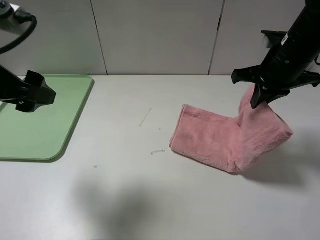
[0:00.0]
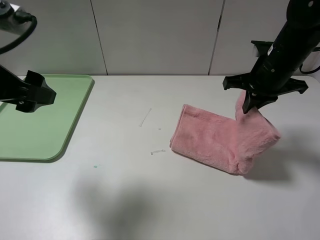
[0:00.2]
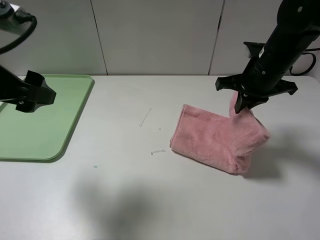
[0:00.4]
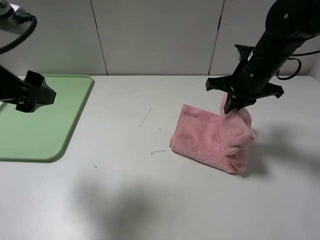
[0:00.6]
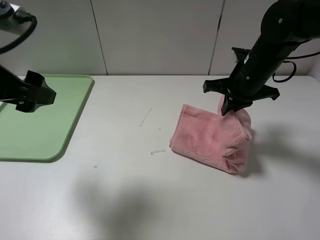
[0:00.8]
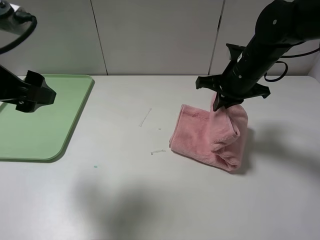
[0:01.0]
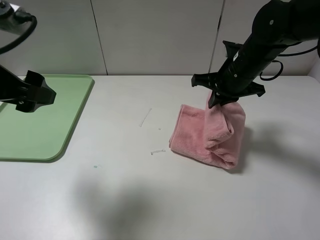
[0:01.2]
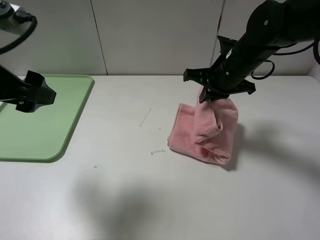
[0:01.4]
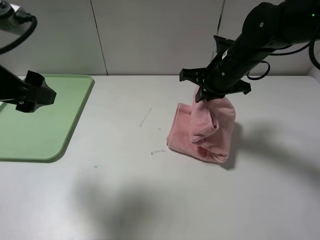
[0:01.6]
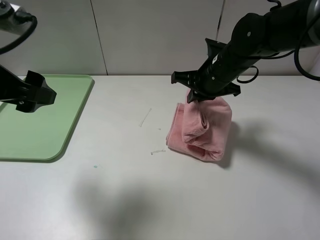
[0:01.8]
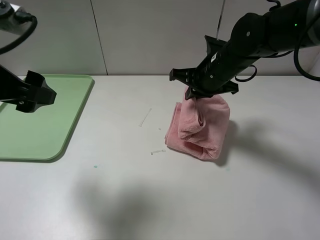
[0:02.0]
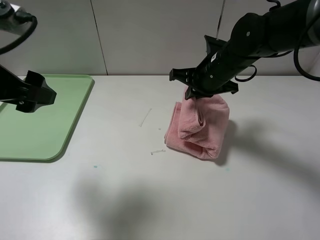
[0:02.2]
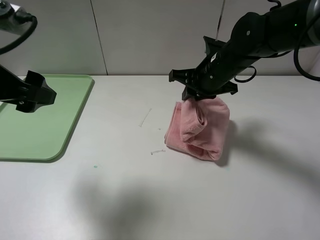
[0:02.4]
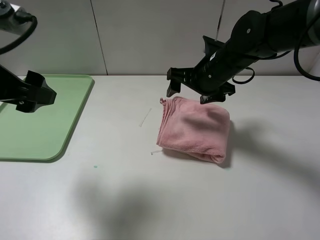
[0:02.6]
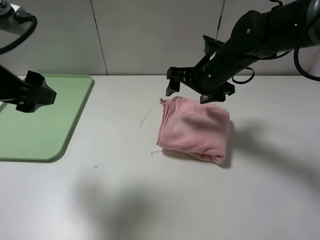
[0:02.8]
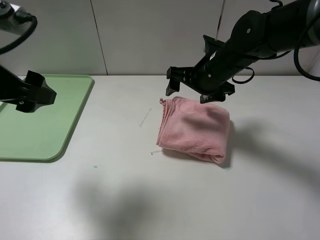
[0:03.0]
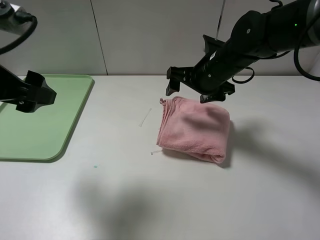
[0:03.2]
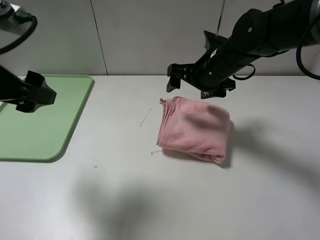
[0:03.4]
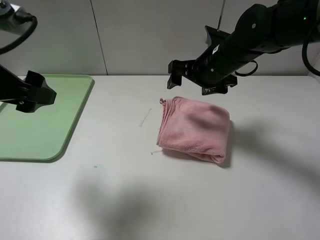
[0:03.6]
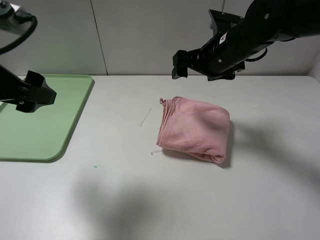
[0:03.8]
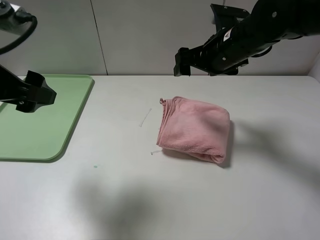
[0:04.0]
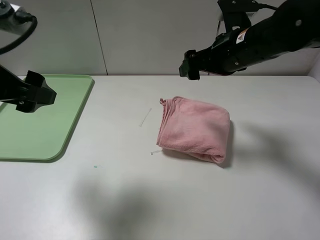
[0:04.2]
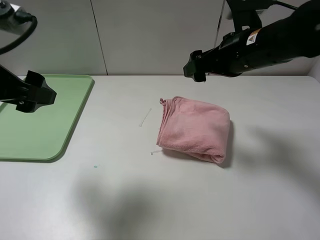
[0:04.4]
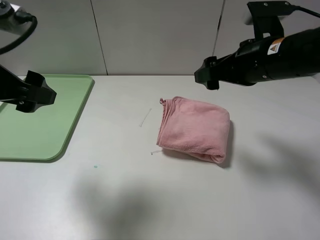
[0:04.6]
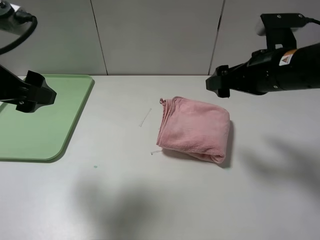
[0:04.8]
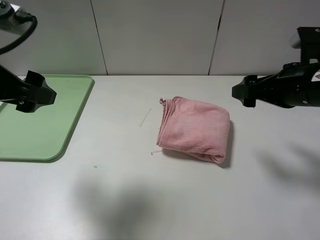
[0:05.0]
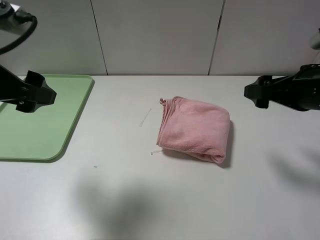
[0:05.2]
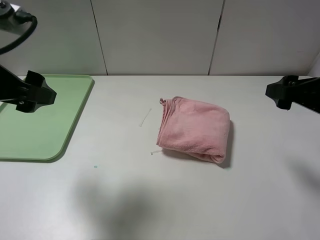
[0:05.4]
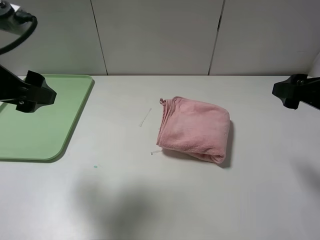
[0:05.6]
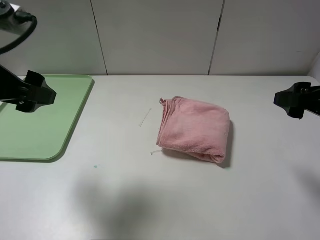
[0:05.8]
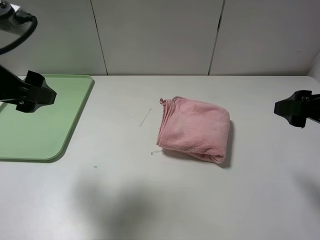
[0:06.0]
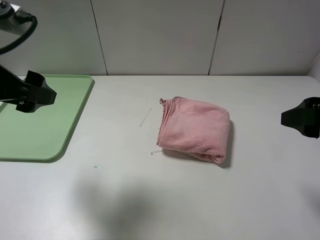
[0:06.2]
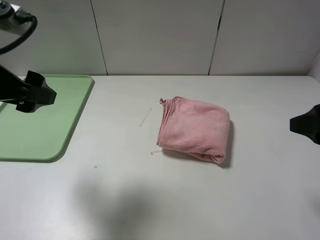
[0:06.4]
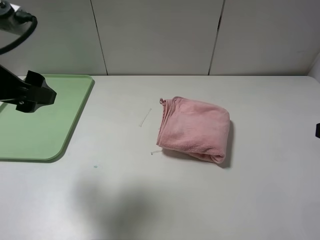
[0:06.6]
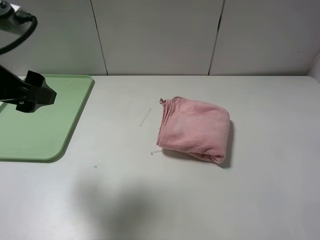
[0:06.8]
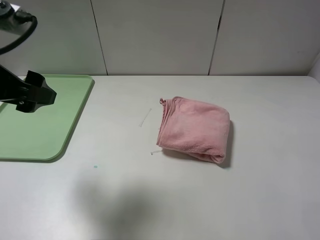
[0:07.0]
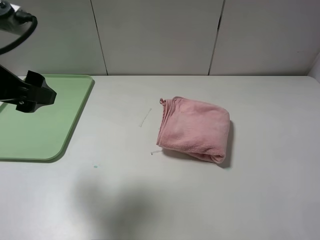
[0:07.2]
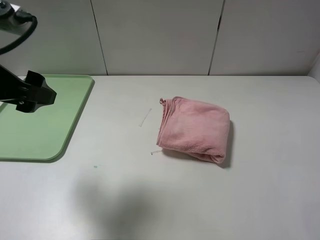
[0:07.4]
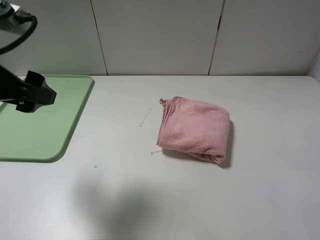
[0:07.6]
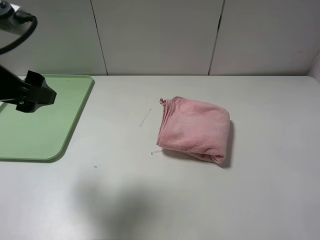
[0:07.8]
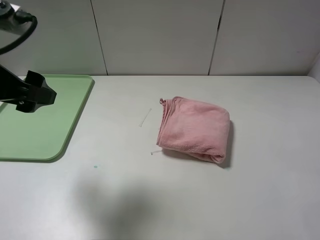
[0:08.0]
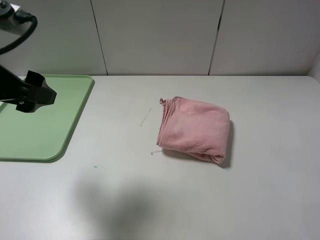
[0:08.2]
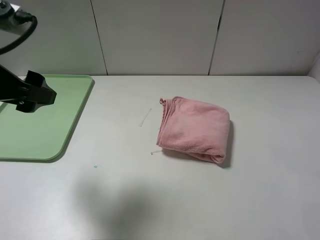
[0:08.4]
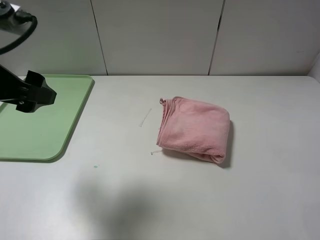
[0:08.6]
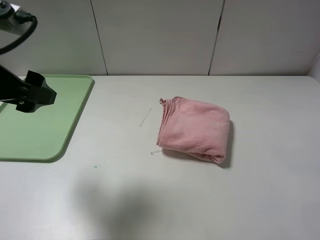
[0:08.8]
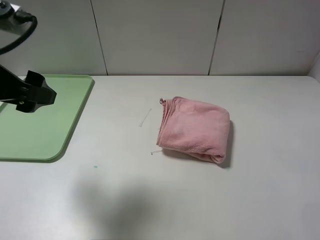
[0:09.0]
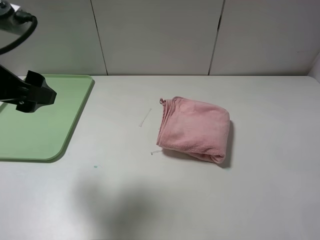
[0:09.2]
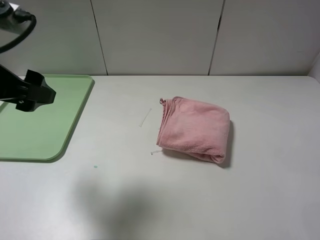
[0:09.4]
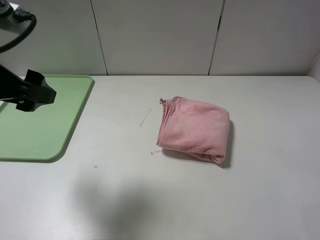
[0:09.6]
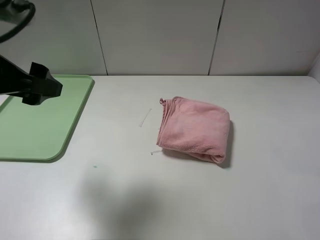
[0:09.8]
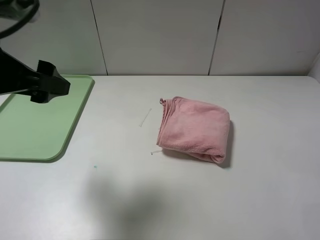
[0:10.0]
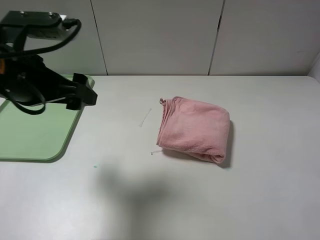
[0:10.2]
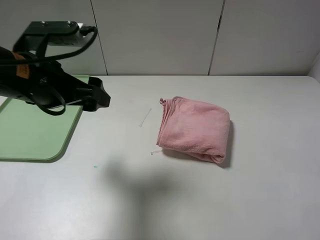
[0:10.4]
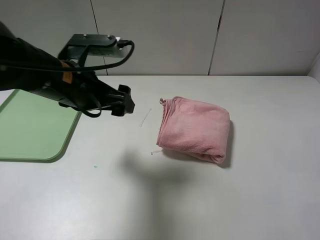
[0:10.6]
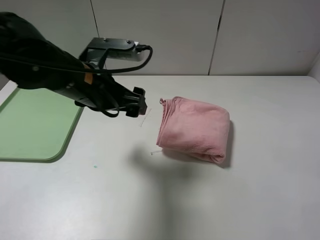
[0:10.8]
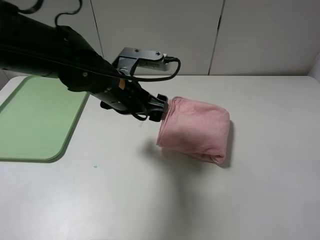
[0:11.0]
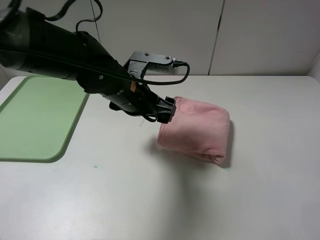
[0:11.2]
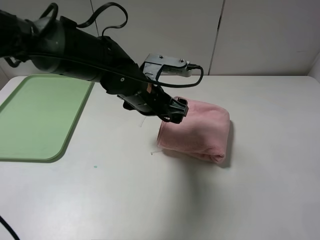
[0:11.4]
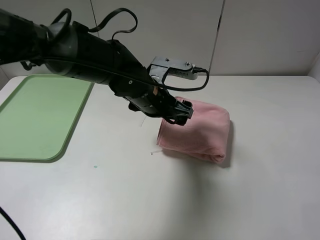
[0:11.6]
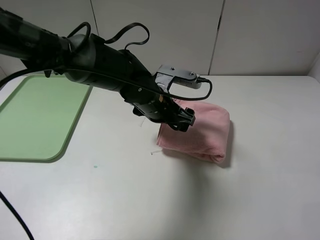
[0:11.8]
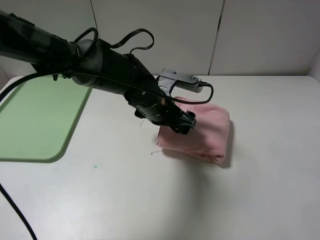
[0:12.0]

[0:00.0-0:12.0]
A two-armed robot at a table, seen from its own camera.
Step, 0:00.0 to 0:02.6: Fold the pink towel from right to left with right gripper.
0:00.0 to 0:01.6: The right gripper is displaced to the left by roughly 10 cm.
0:01.6 to 0:03.0: The right gripper opens up.
0:03.0 to 0:04.4: The right gripper goes roughly 10 cm upward and backward.
0:04.4 to 0:06.0: The right gripper goes approximately 20 cm to the right and backward.
0:06.0 to 0:07.6: The right gripper heads backward, covering about 15 cm.
0:09.0 to 0:10.4: The left gripper shifts approximately 10 cm to the right and downward.
0:10.4 to 0:12.0: The left gripper travels to the right, downward and forward by about 20 cm.

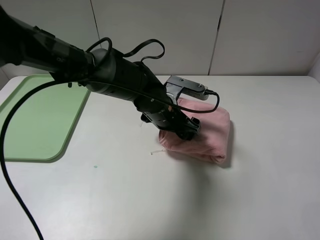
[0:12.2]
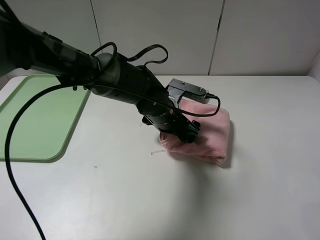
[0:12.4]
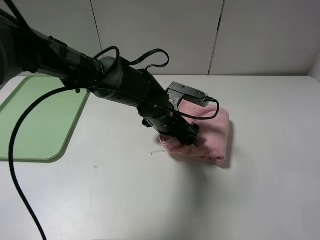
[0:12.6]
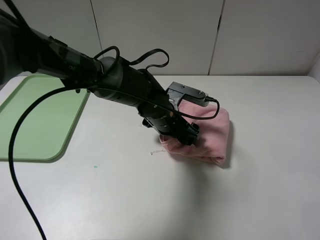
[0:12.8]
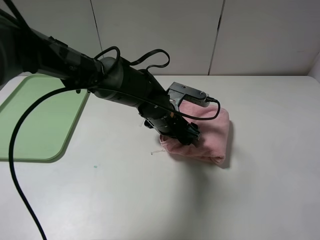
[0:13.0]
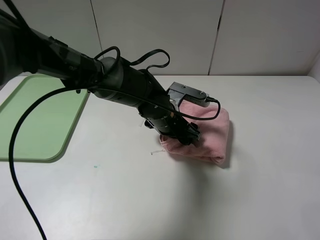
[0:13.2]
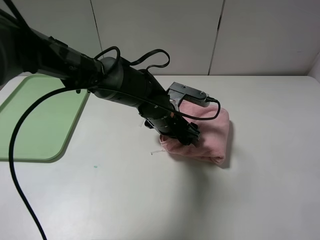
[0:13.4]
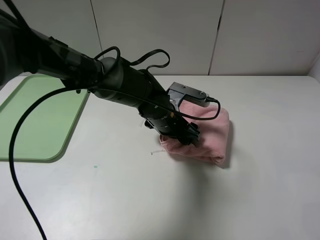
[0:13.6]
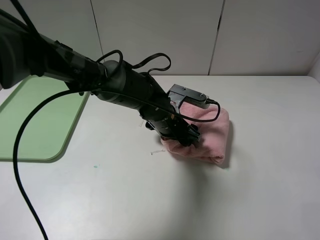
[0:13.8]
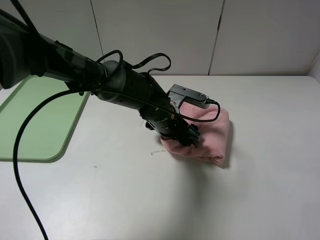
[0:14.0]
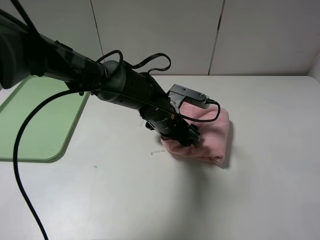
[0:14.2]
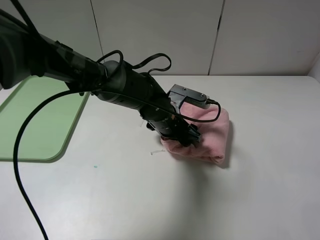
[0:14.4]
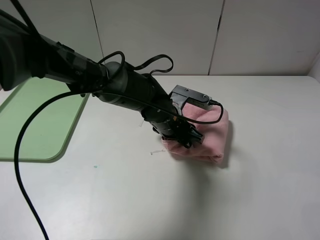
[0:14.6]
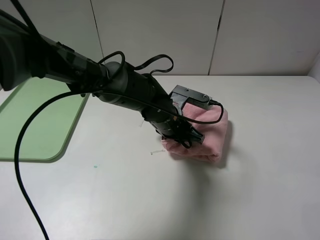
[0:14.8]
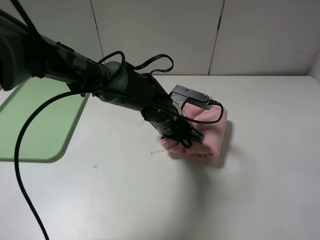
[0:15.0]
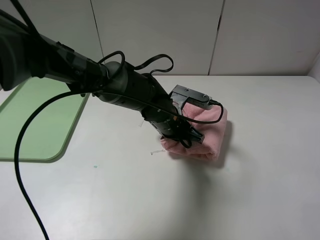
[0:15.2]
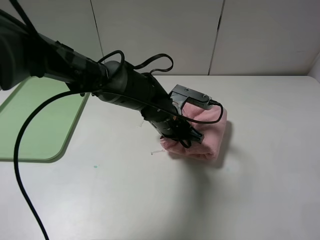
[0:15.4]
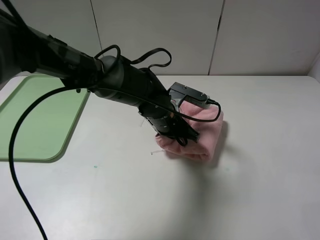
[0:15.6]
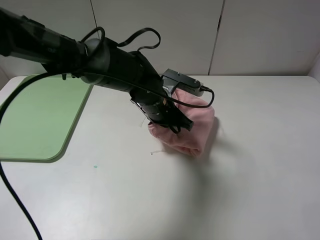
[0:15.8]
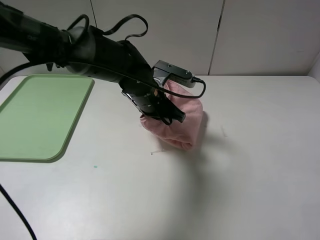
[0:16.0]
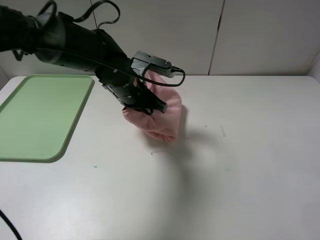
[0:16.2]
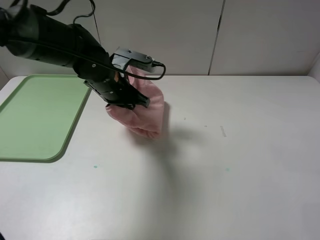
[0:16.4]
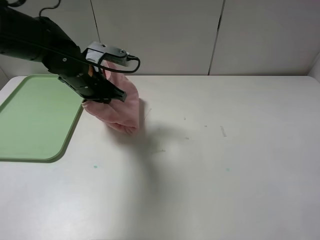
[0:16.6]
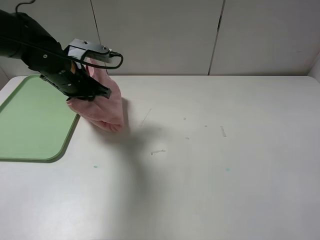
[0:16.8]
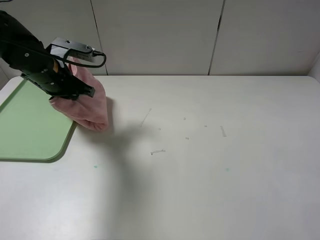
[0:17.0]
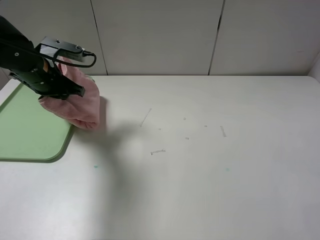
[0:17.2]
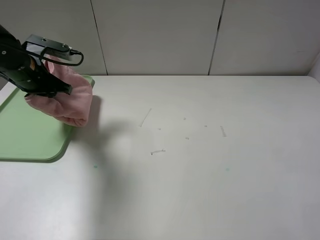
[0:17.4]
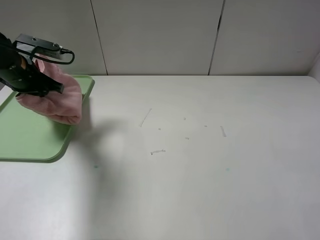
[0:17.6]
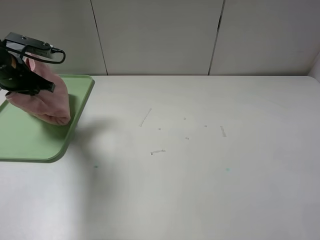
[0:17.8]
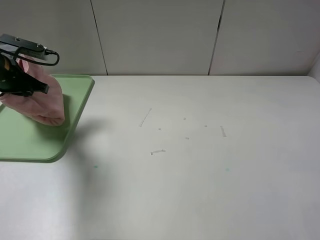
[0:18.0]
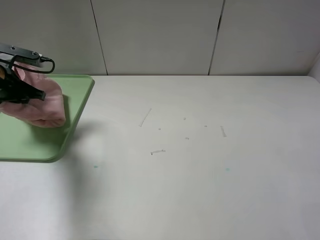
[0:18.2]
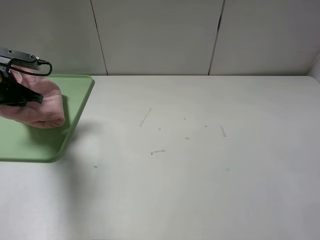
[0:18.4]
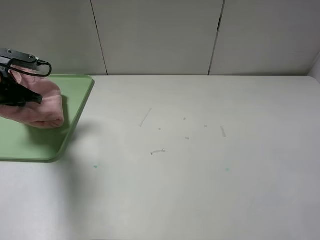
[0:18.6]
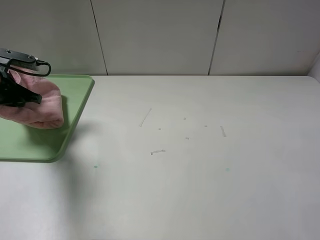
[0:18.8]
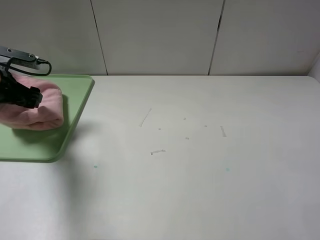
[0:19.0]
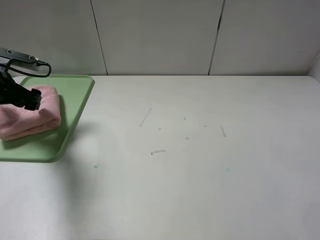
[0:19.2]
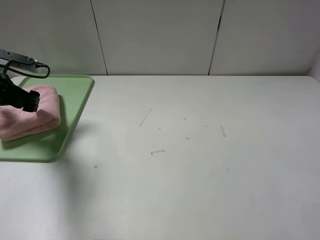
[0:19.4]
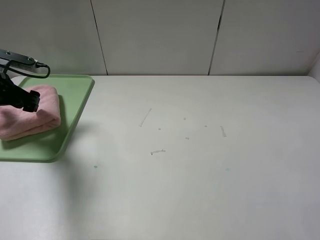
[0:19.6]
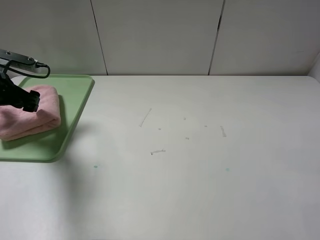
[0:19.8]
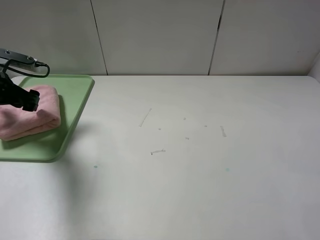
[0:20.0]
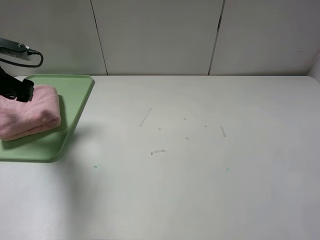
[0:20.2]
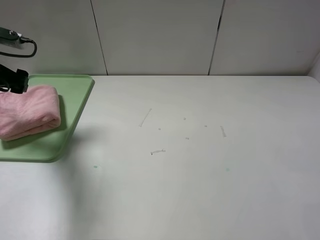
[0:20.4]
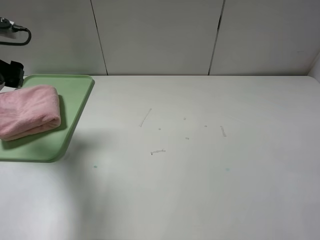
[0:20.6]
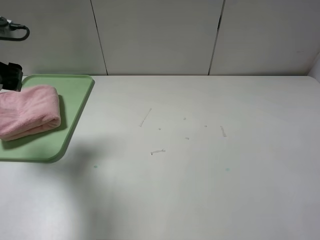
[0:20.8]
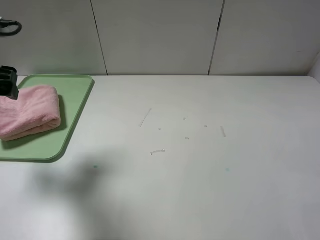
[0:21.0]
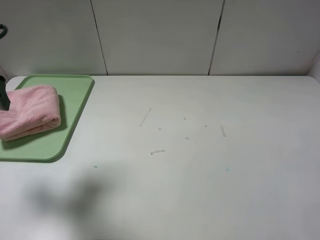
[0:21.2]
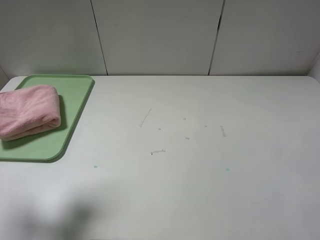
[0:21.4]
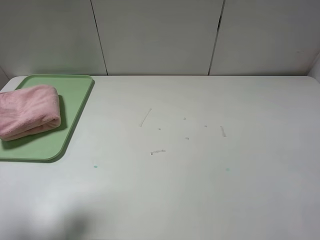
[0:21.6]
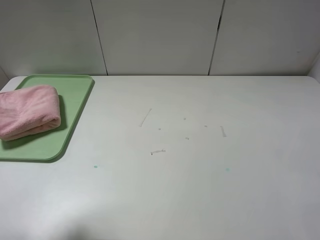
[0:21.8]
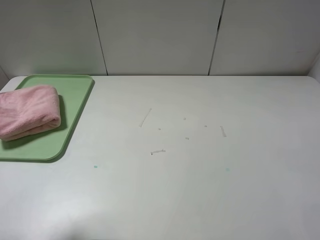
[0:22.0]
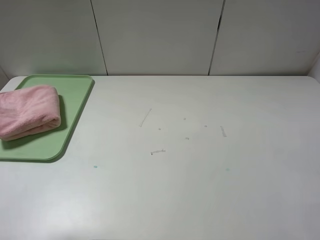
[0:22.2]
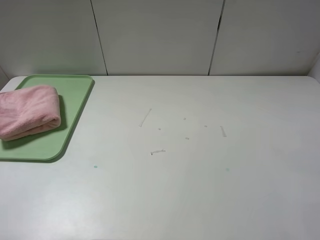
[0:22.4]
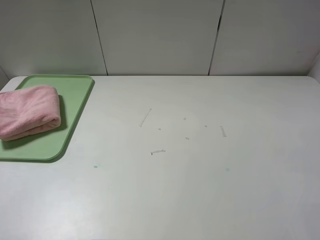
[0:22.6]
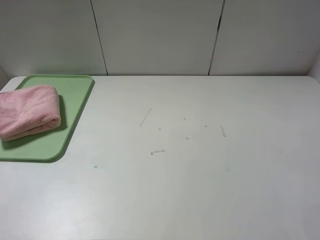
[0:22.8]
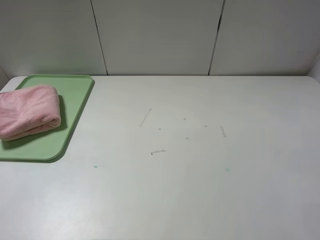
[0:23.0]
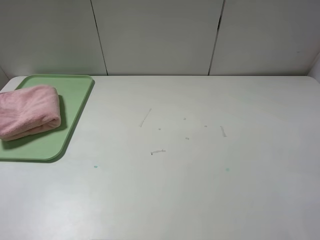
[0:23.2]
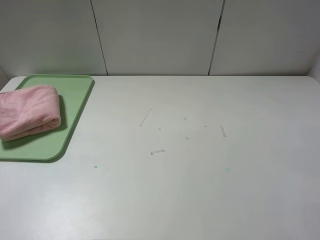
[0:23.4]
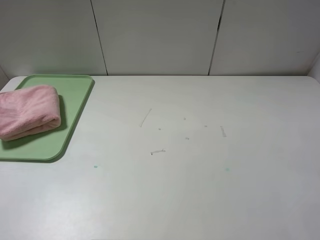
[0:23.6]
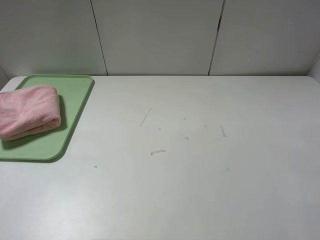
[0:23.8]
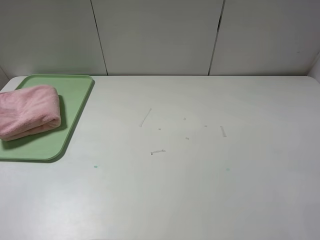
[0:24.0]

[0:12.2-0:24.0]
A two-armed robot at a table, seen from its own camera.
Step, 0:12.2 to 0:19.8: Place the folded pink towel on the tray with the left gripper.
0:12.2 to 0:13.6: The grippers move only a little.
0:13.6 to 0:15.2: The left gripper closes up.
0:15.2 to 0:16.6: The left gripper goes about 20 cm to the left and upward.
0:16.6 to 0:18.2: The left gripper shifts about 20 cm to the left.
0:18.2 to 0:19.6: The left gripper opens.
0:19.6 to 0:21.0: The left gripper moves upward and backward, some 15 cm.
0:21.0 to 0:22.6: The left gripper shifts roughly 20 cm backward.
